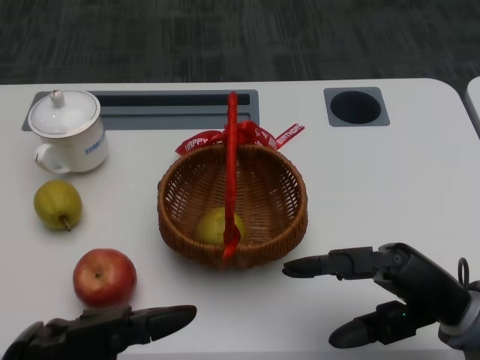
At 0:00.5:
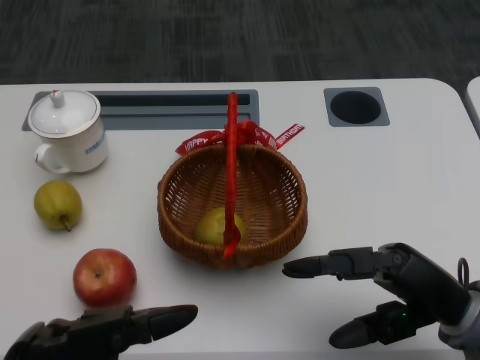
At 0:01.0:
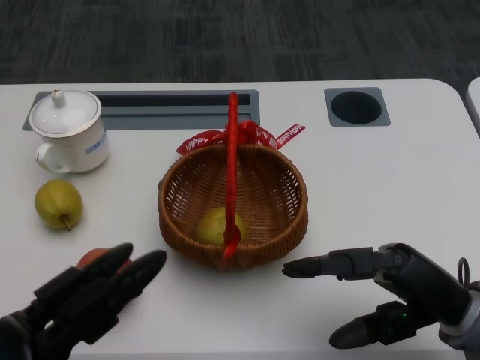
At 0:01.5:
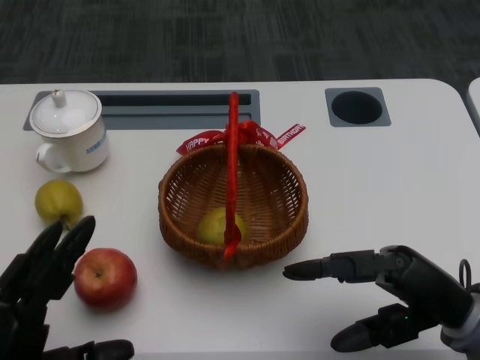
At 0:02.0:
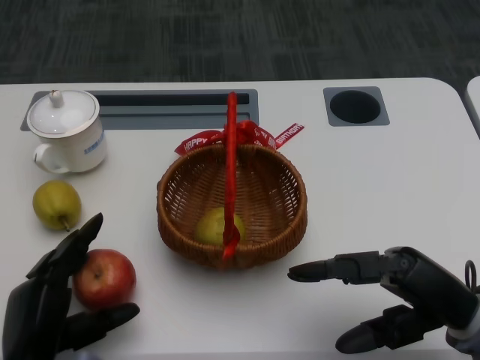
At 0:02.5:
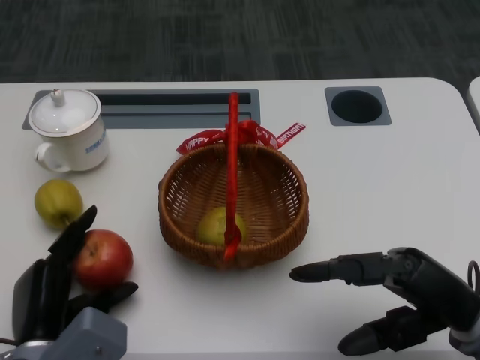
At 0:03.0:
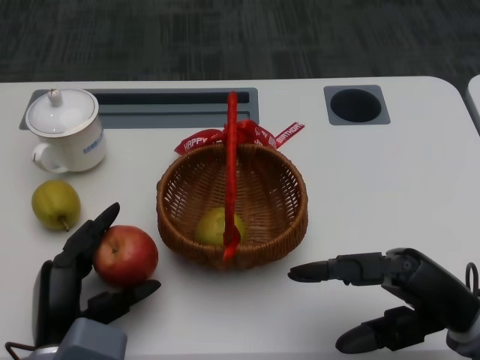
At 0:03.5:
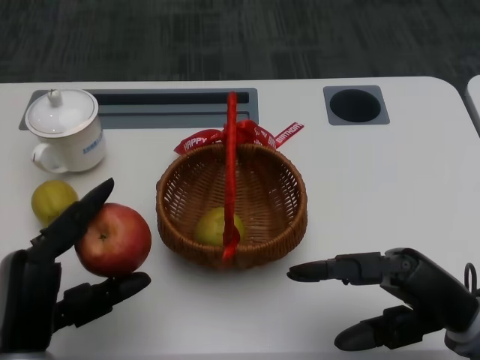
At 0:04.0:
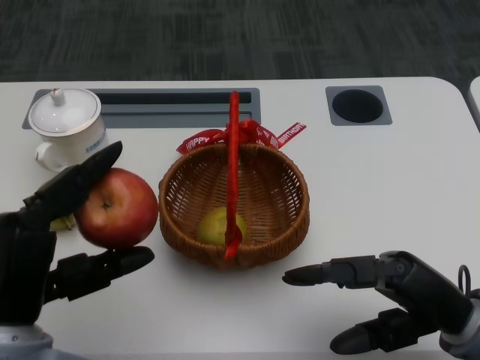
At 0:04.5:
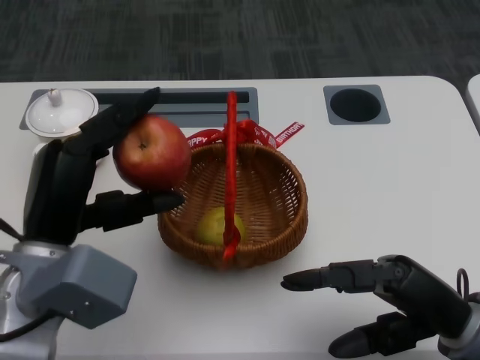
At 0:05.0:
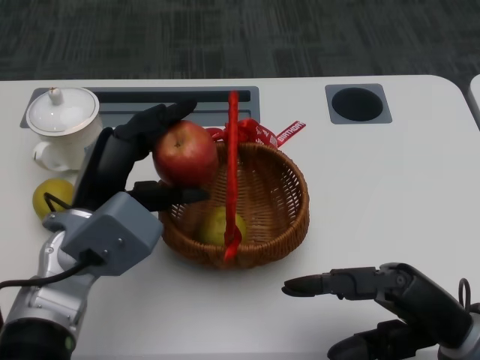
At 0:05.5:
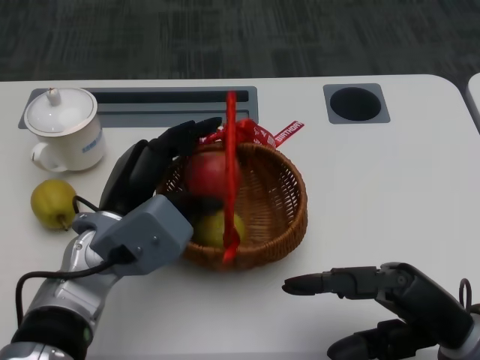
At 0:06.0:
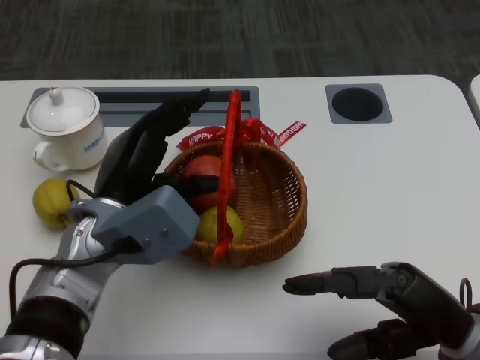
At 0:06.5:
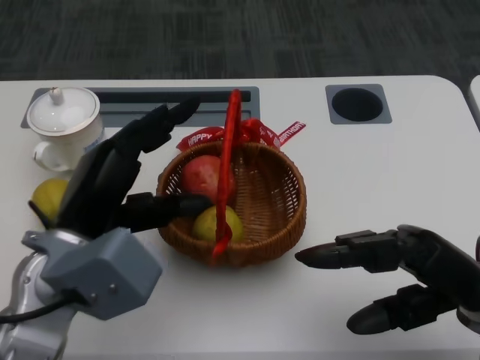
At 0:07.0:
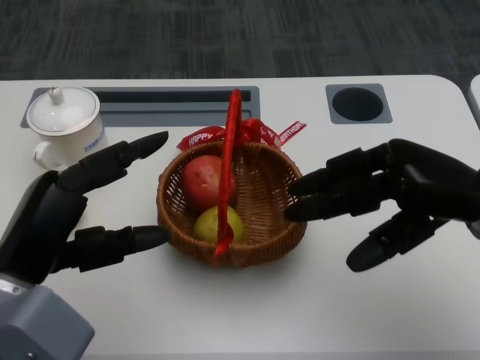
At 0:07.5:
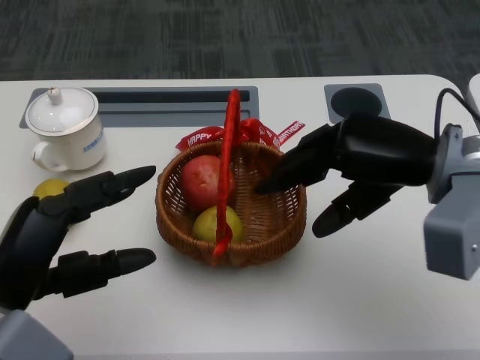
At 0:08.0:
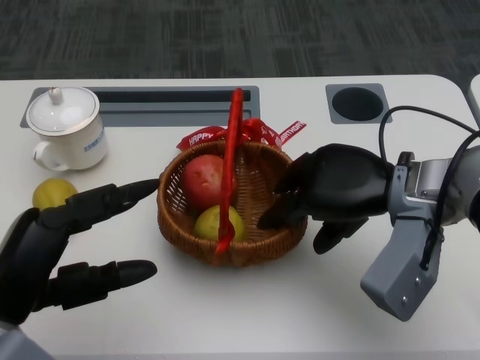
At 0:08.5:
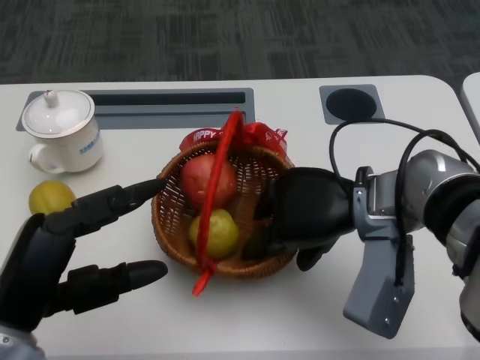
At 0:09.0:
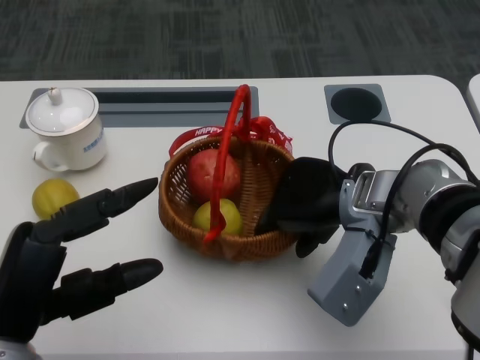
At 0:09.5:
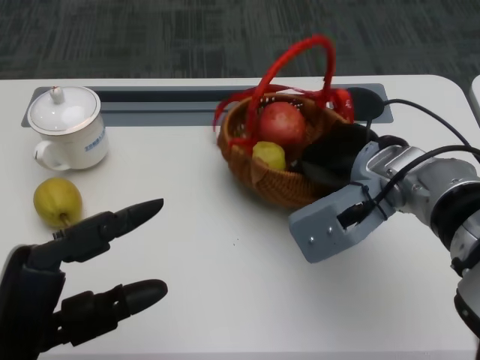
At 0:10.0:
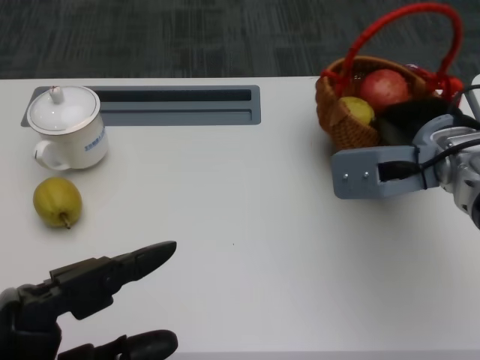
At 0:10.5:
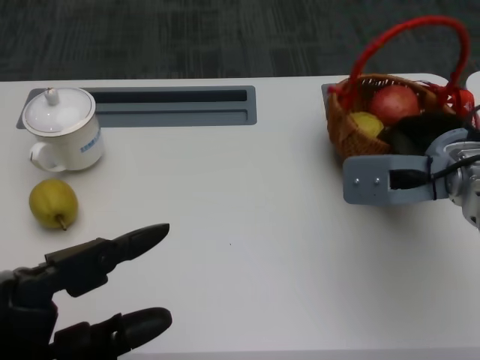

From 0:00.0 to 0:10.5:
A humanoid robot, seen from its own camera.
Step, from 0:01.0 to 0:02.0: Grasp the apple with the left gripper.
Step, from 0:02.5 to 0:04.5: Place the apple into the basket with the left gripper.
Step, from 0:05.0 to 0:07.0: Grasp the basket with the right gripper.
Step, from 0:07.5 to 0:09.0: Move the basket to the front of the table with the right gripper.
From 0:02.0 to 0:04.0: The left hand goes roughly 10 cm upward.
From 0:04.0 to 0:06.5: The left hand heads forward, covering approximately 5 cm.
From 0:06.5 to 0:08.5: The right hand shifts about 15 cm to the left and forward, while the left hand goes approximately 10 cm backward.
From 0:08.5 to 0:10.5: The right hand travels to the right by approximately 5 cm. The left hand goes roughly 5 cm backward.

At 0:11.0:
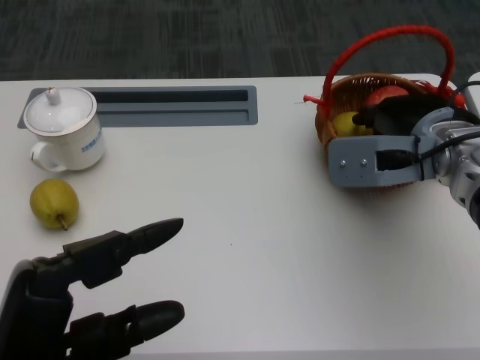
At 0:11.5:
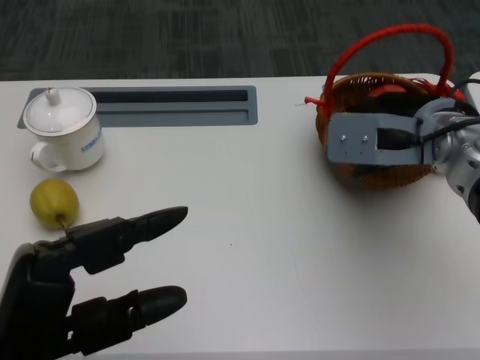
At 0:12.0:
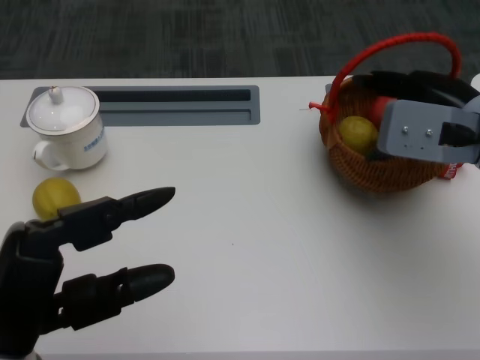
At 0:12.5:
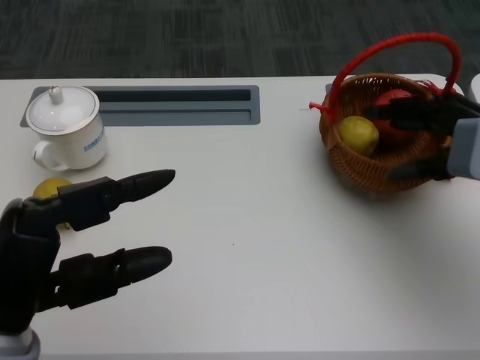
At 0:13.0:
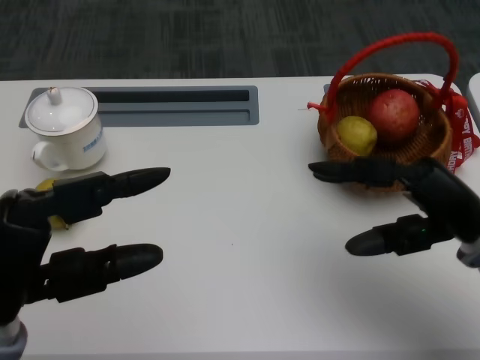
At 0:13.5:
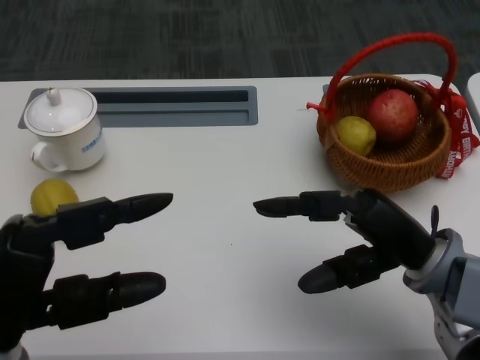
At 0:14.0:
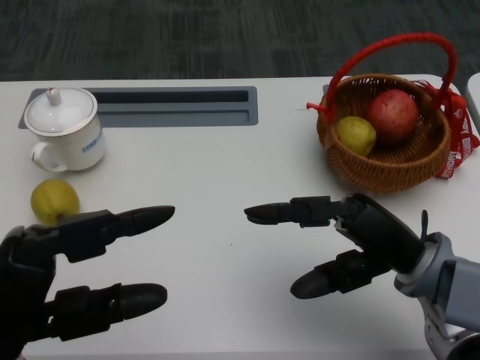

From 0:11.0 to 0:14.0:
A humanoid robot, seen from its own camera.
From 0:11.0 to 0:12.5: The right hand goes roughly 10 cm to the right.
From 0:12.5 to 0:14.0: The right hand moves to the left, downward and backward, about 15 cm.
